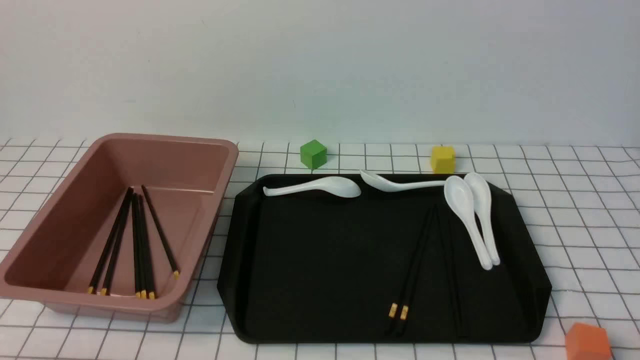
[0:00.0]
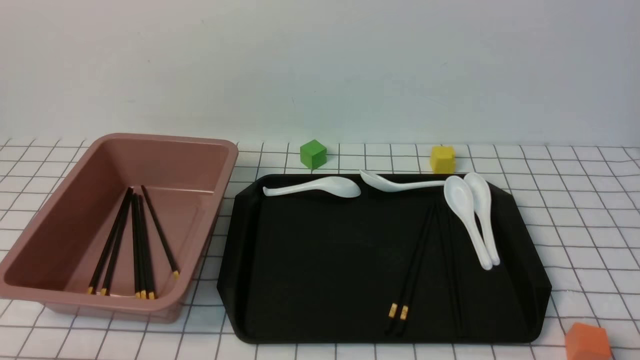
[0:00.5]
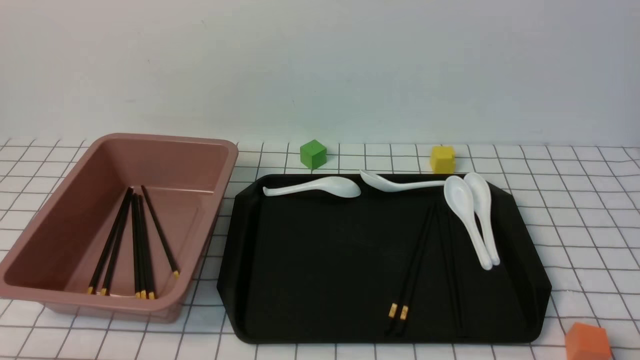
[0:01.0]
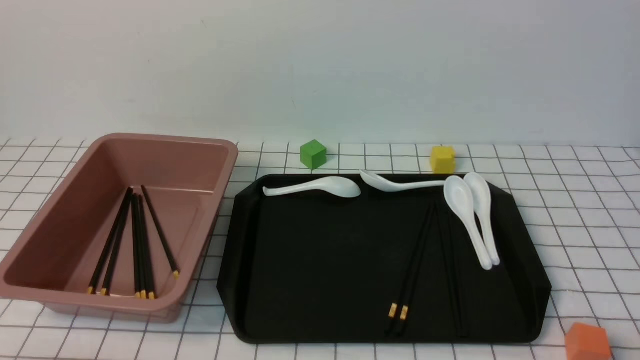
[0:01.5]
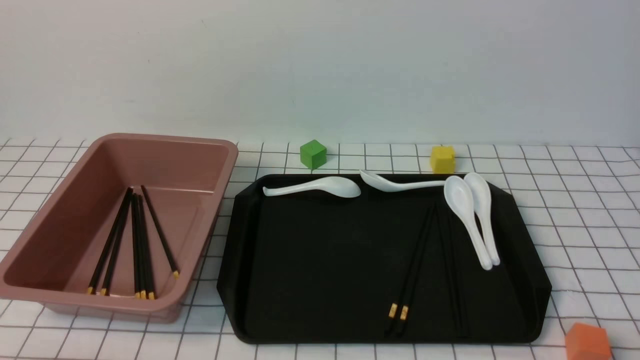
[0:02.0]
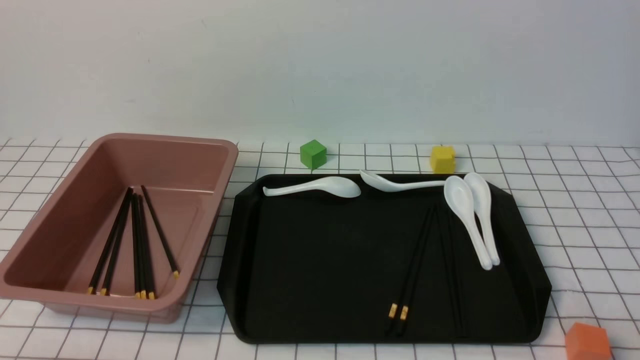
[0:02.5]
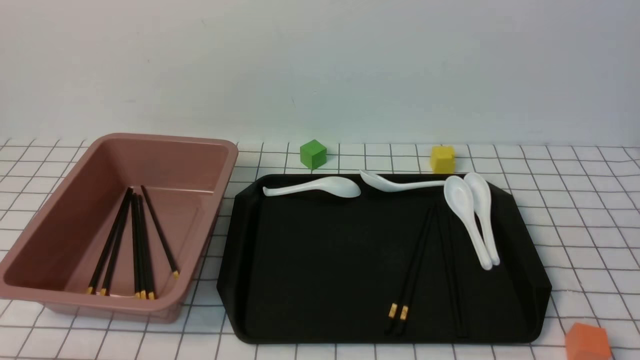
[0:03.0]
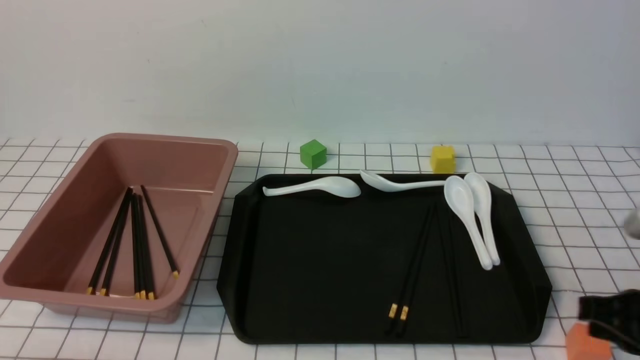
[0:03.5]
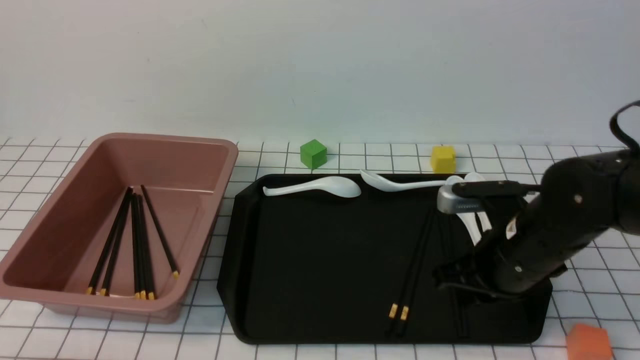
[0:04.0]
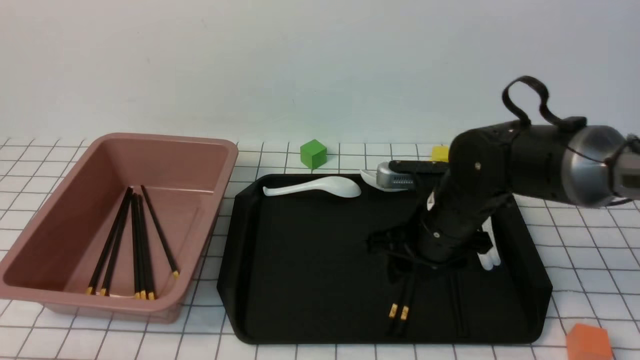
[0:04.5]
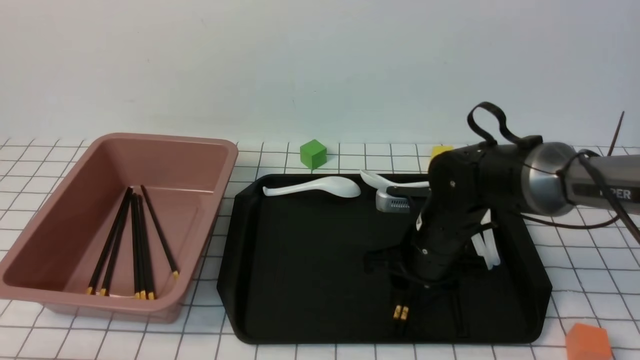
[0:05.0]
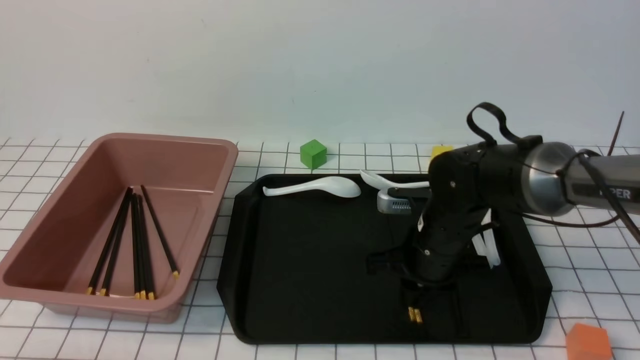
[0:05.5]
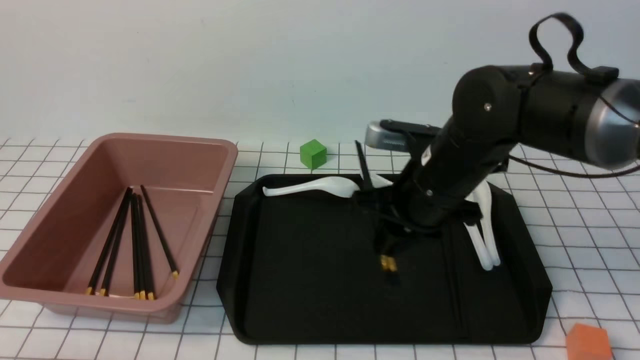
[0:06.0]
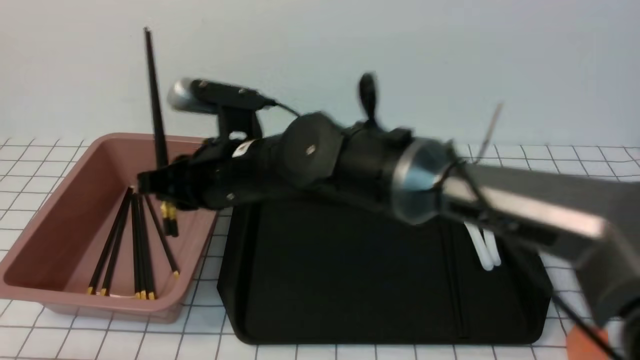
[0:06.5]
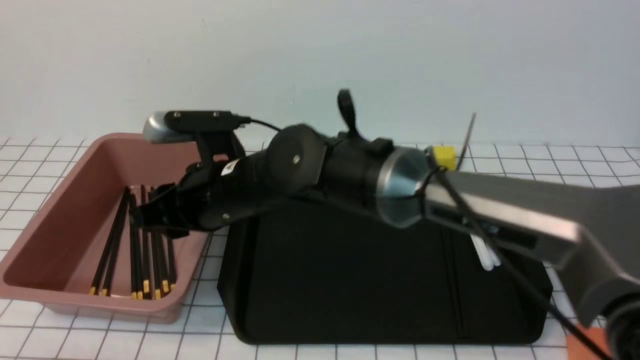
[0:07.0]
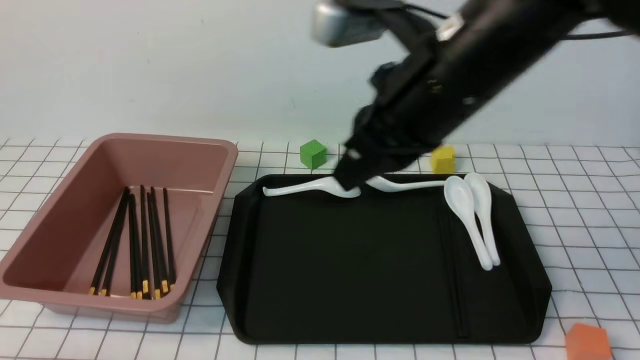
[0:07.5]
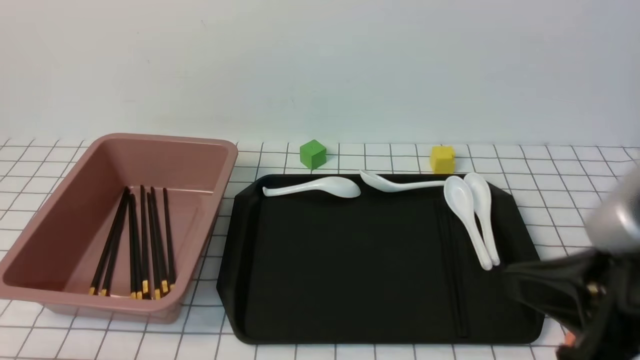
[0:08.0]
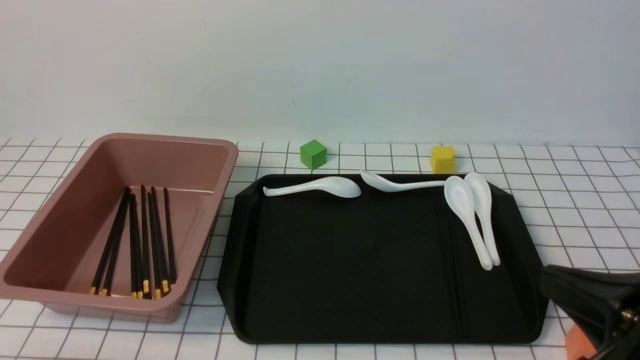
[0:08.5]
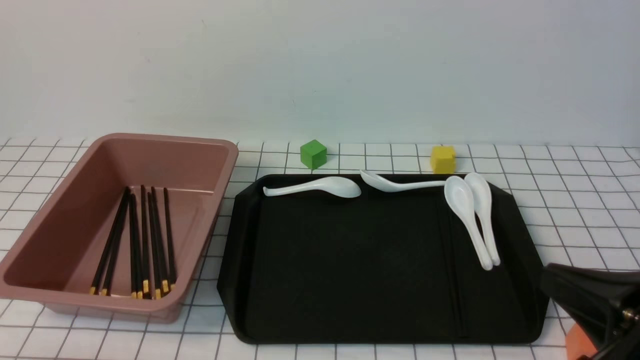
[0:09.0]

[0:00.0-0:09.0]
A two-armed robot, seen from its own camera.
Step, 0:00.0 to 0:05.5: use the right arm to grab a pair of chopsticks.
Step, 0:06.0 to 0:07.0: use the right arm to put the chopsticks into the lunch box.
0:02.0 to 0:04.5: The right gripper goes some 35 cm forward and to the left, and closes, then reopens.
0:04.5 to 0:07.0: The right gripper heads to the left and upward, covering roughly 20 cm, and closes up.
0:07.0 to 0:09.0: The right gripper moves to the right and backward, some 35 cm, and closes up.

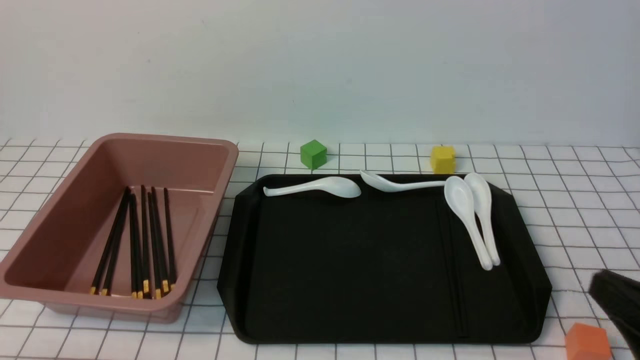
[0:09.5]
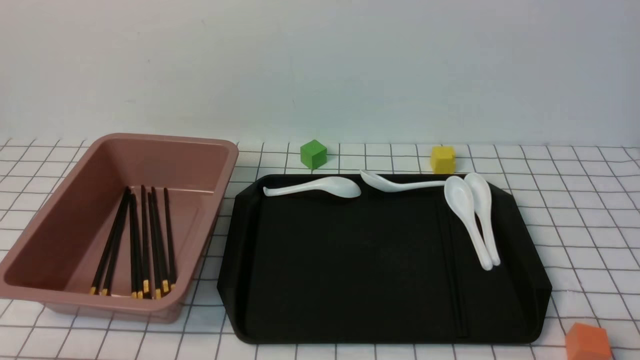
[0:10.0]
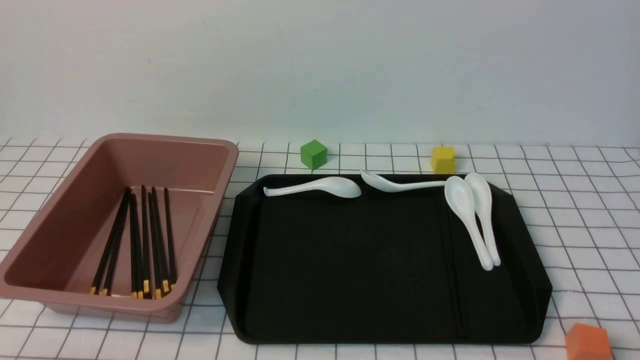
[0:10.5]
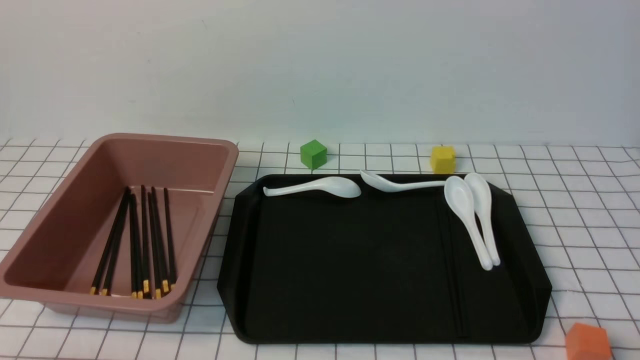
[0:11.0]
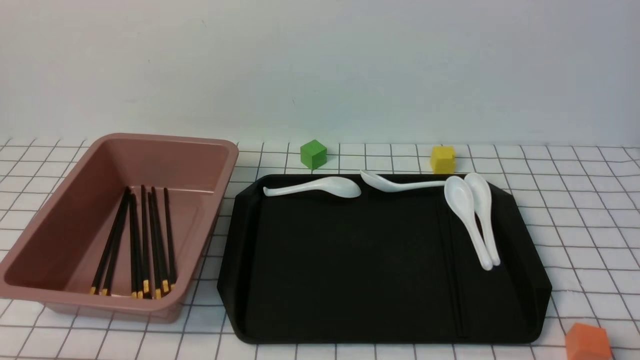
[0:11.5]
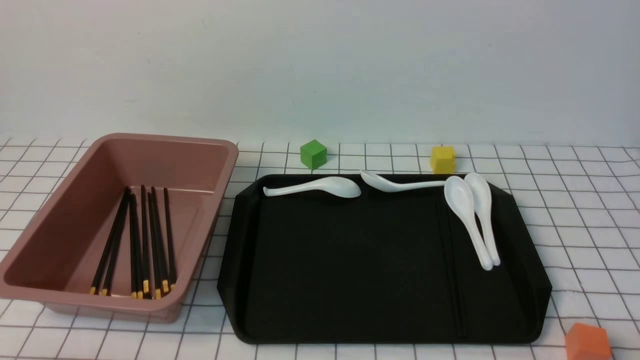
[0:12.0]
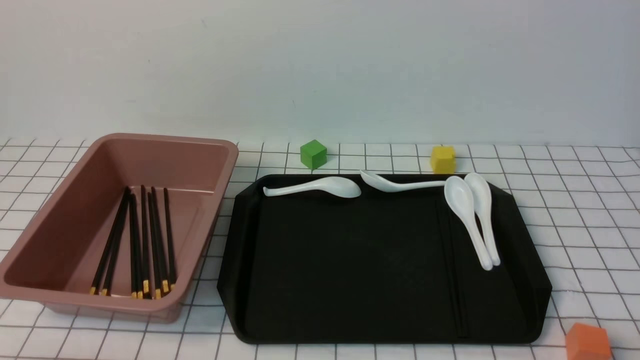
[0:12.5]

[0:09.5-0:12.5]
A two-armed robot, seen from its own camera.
0:09.5 to 0:11.0: The right gripper heads downward, covering approximately 5 cm.
0:11.0 to 0:12.5: Neither gripper changes place.
